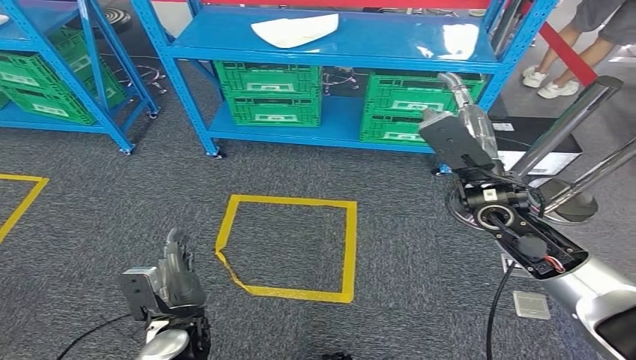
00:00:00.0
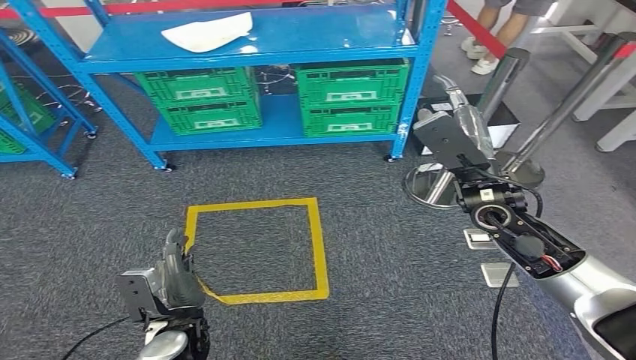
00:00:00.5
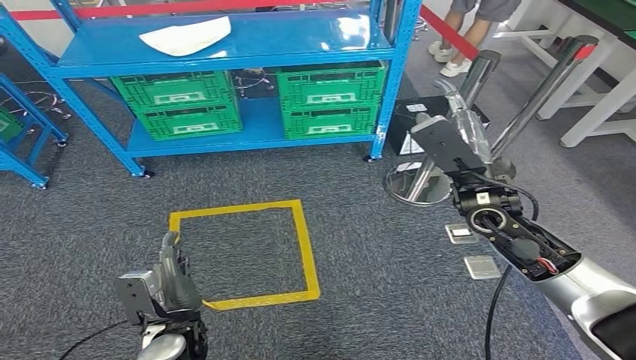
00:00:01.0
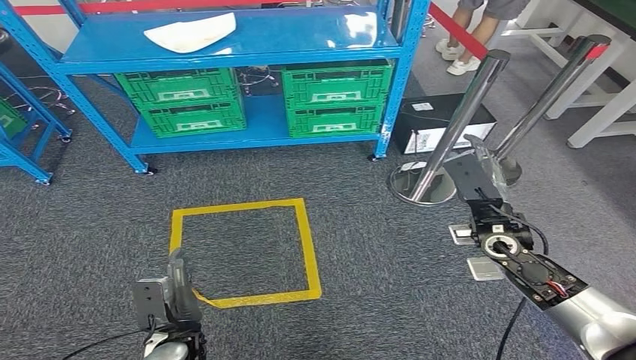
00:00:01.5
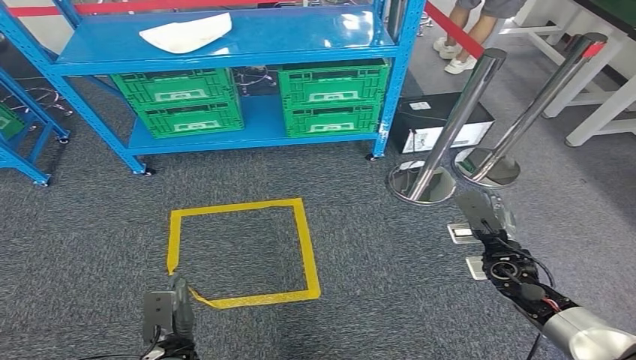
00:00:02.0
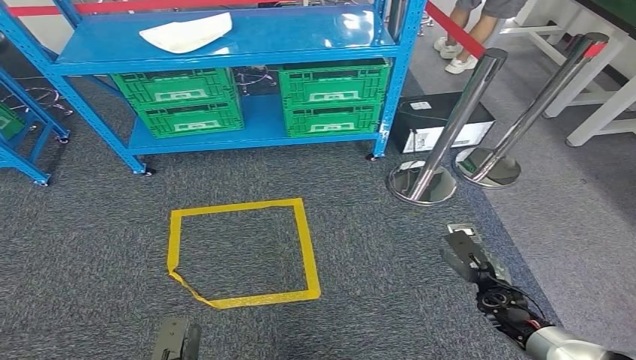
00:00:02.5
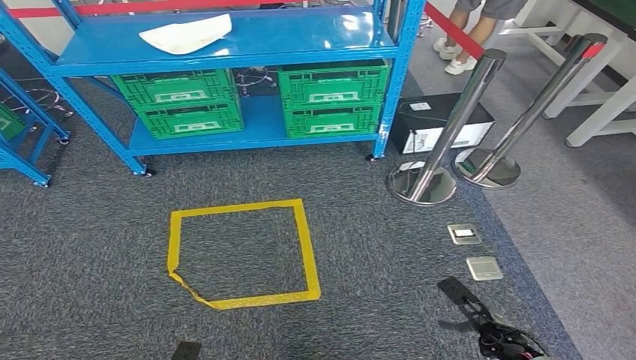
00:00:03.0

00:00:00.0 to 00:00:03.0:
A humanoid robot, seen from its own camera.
Step, 00:00:00.0 to 00:00:03.0: Return to the initial position at the workbench.
00:00:01.5 to 00:00:03.0: The right hand travels downward and backward by about 30 cm, while the left hand goes some 15 cm backward, downward and to the left.
